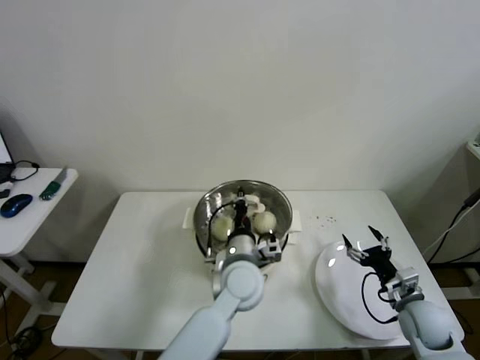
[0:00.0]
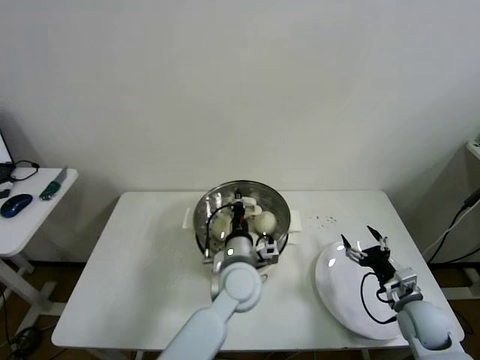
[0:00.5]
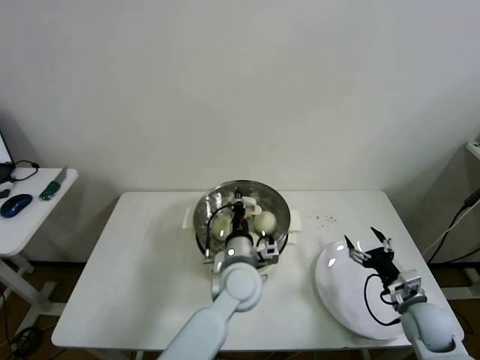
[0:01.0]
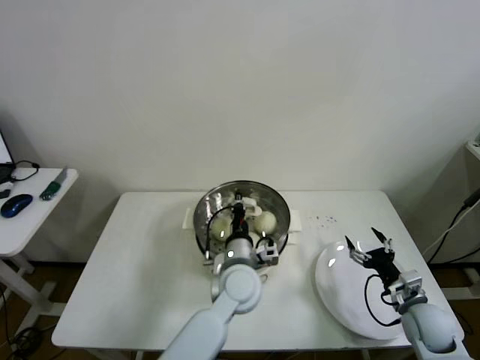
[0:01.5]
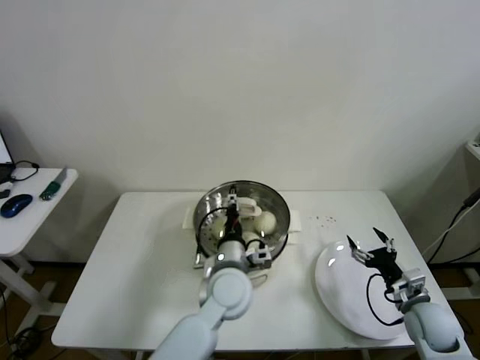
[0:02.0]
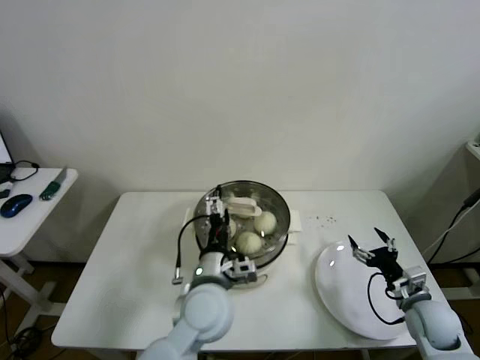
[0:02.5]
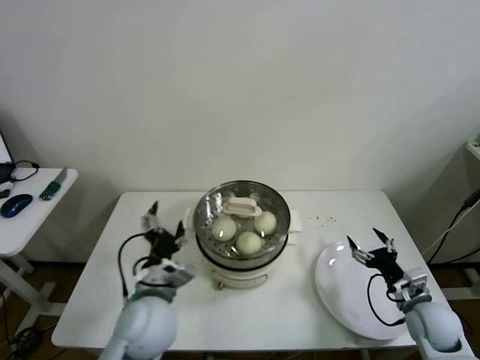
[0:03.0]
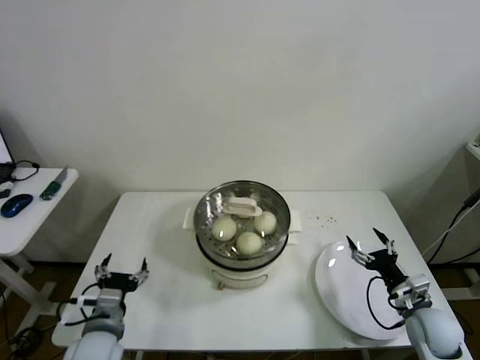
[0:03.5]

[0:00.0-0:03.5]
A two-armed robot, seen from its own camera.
0:00.0 to 0:02.0: The left gripper opens up.
0:02.0 to 0:03.5: The left gripper goes roughly 25 cm to the left and backward, and opens its fingers.
